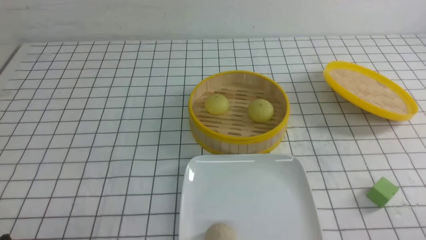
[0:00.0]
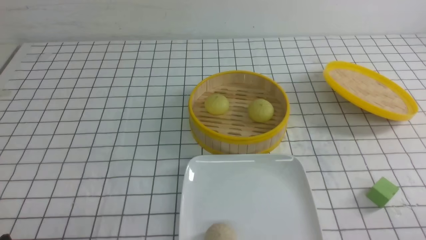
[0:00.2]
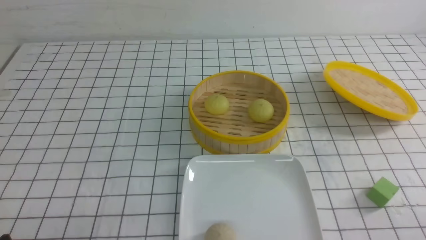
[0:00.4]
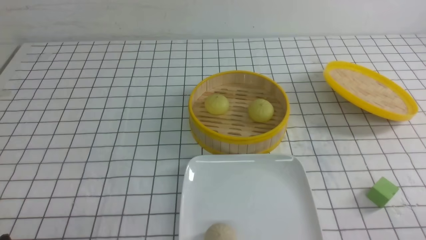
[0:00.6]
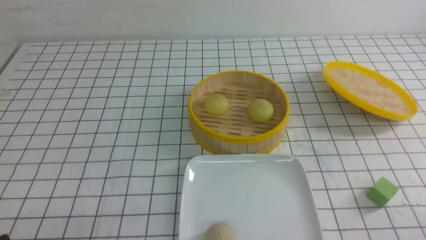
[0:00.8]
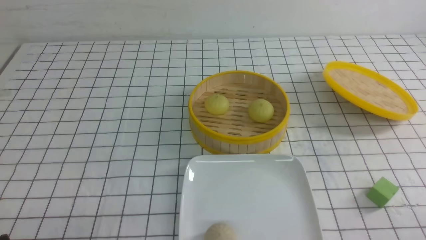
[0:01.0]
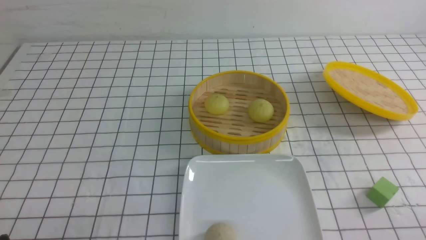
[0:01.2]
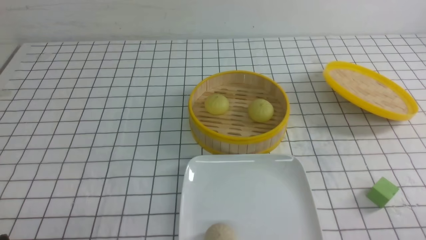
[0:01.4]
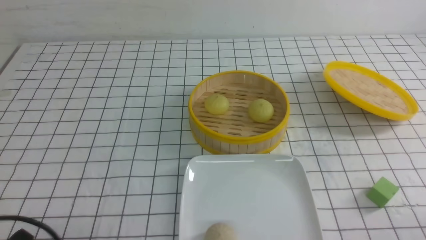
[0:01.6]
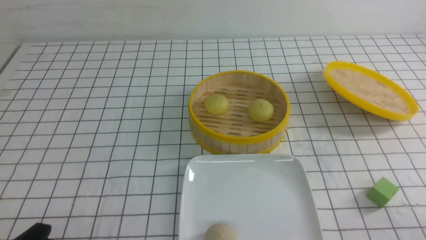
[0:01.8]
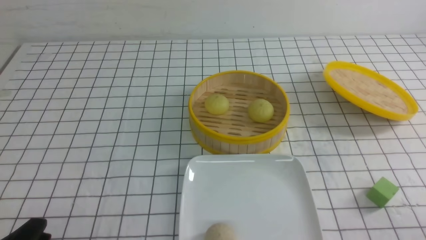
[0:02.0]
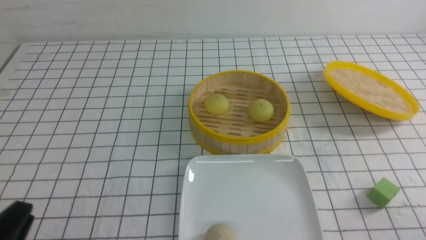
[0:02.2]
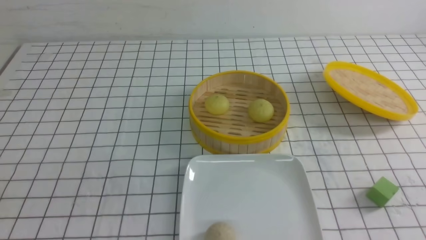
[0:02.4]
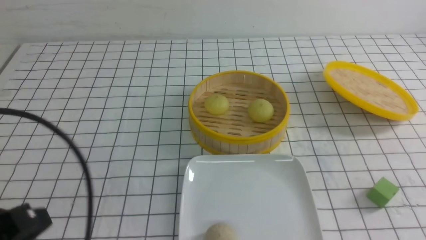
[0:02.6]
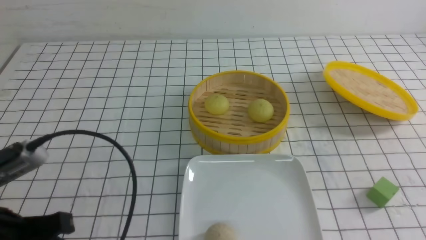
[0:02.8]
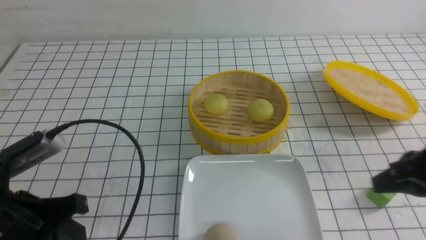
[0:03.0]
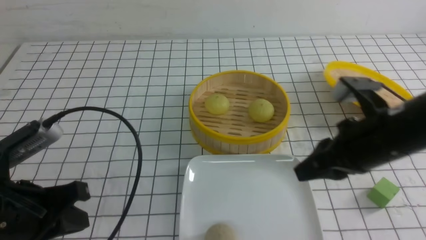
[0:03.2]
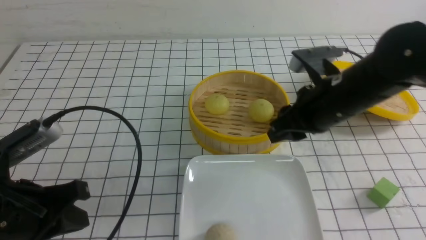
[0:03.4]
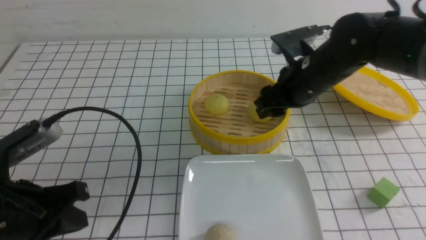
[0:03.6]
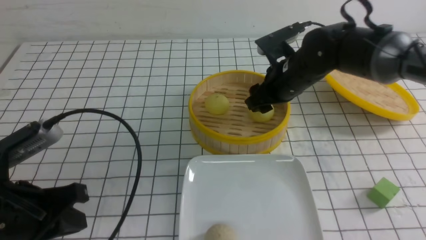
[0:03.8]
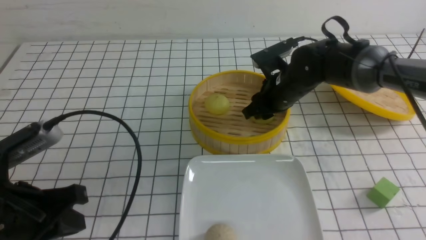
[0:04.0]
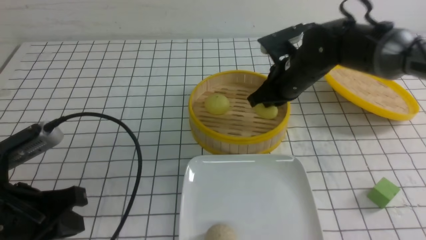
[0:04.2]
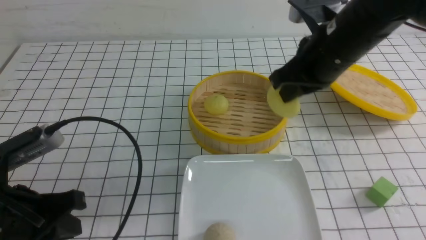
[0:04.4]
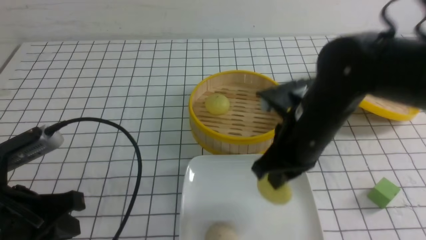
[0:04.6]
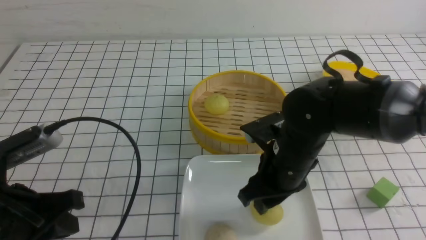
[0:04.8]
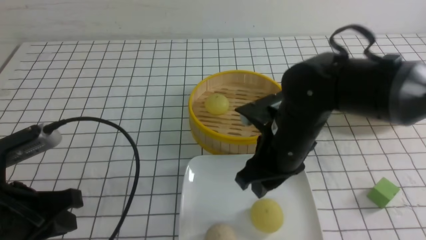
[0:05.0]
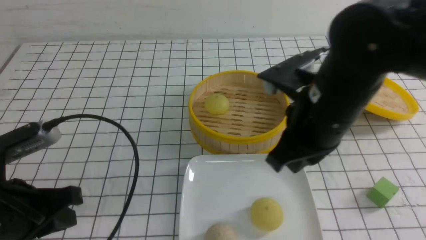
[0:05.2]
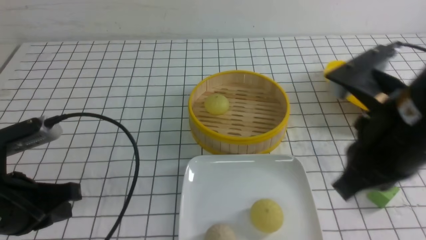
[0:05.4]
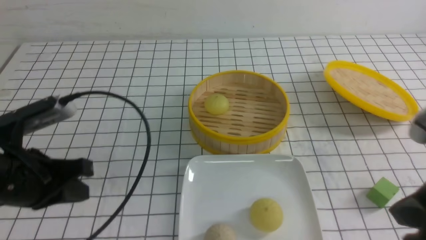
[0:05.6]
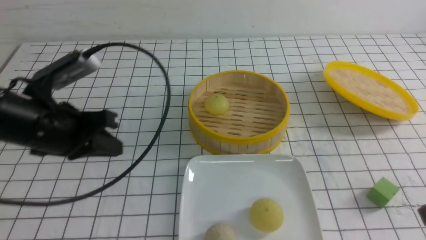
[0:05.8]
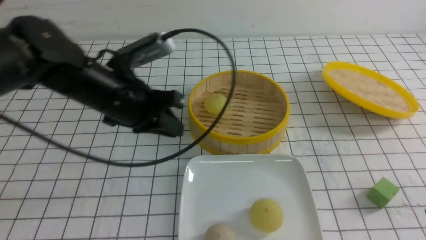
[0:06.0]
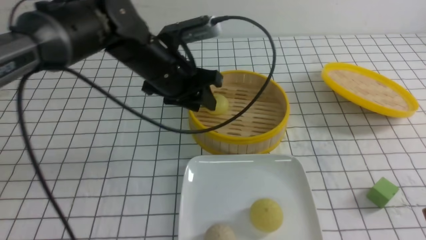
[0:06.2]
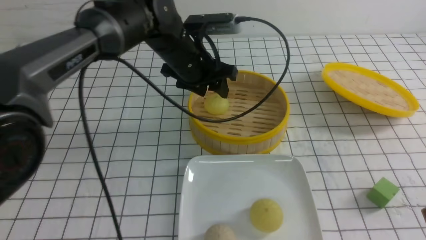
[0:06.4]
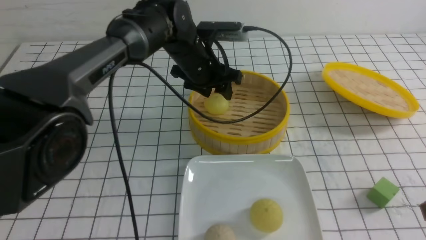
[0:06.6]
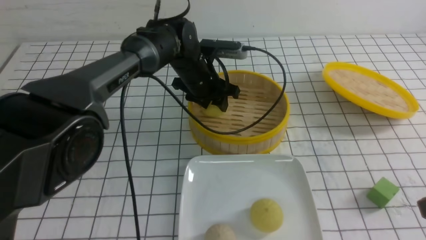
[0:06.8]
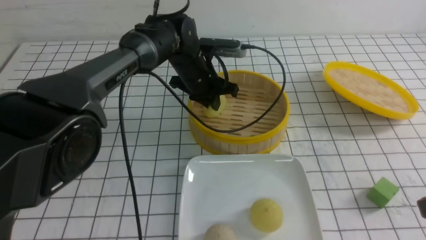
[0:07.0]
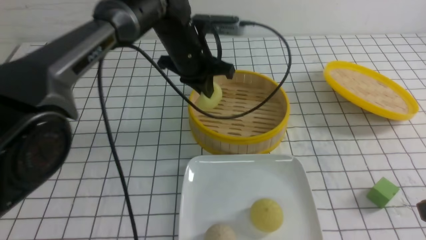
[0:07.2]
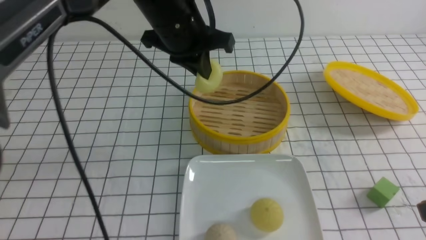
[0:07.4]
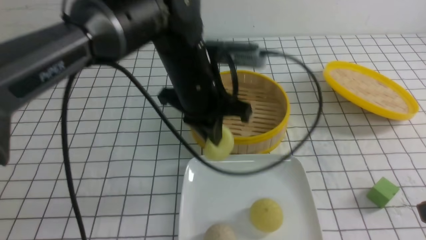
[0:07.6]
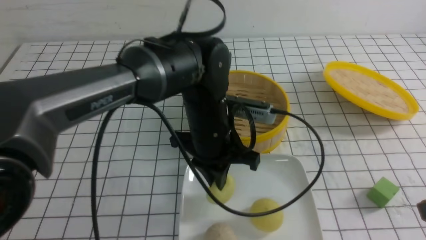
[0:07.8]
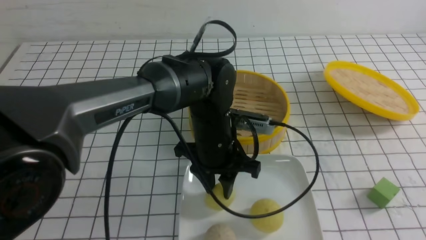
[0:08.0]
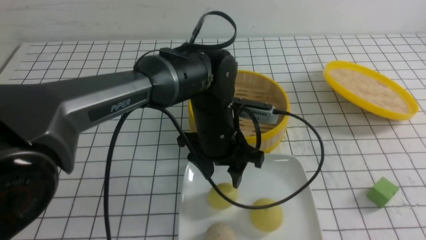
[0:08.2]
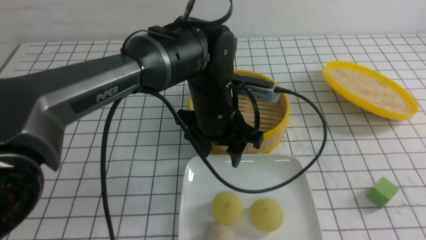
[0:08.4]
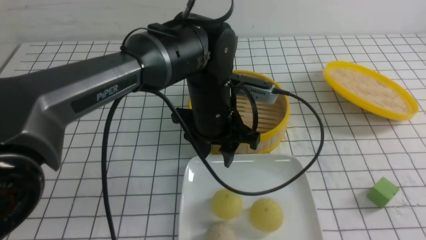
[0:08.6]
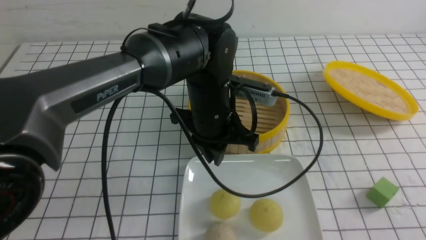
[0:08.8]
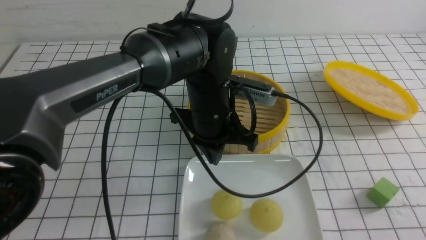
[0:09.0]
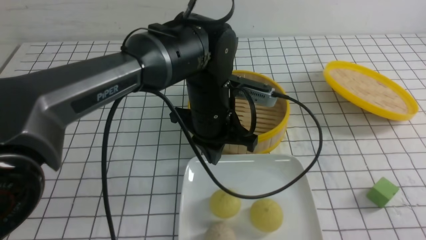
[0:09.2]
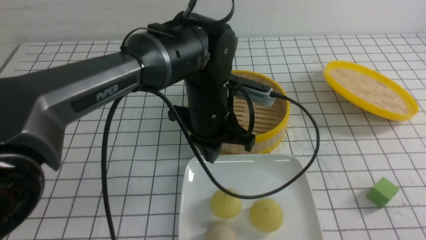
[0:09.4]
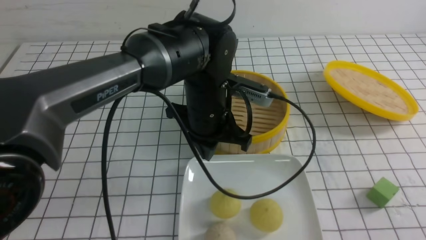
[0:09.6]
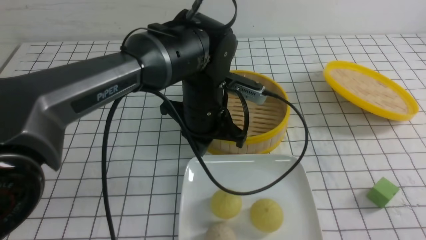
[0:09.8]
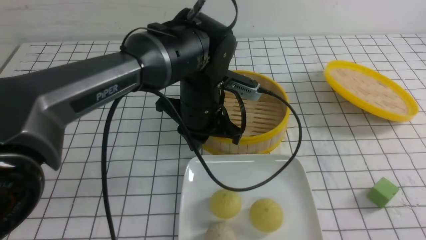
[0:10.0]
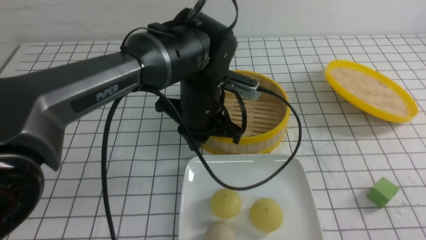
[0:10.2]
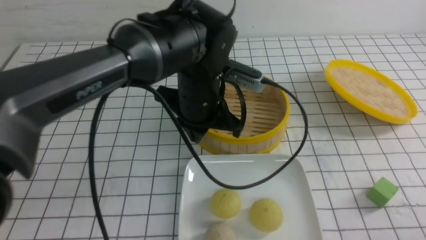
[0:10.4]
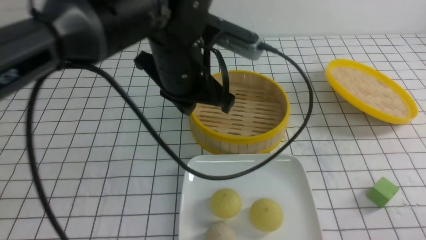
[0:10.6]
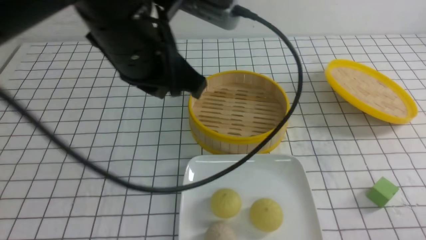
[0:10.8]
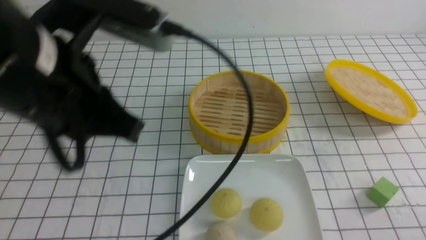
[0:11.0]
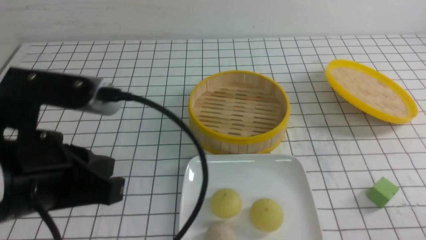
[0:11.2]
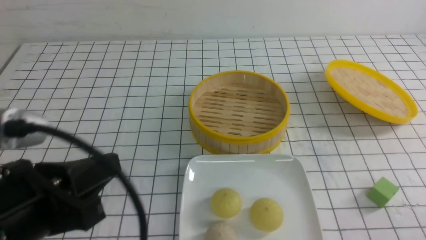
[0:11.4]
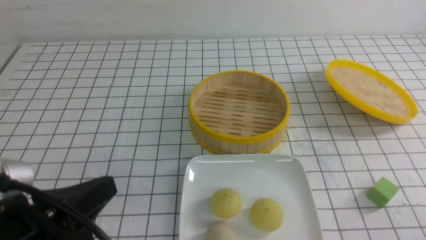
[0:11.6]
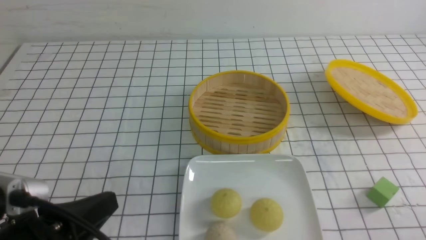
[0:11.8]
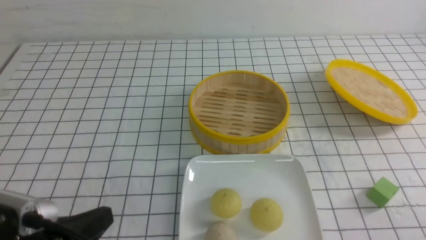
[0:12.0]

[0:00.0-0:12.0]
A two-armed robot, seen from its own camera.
Step, 0:00.0 to 0:04.2: use the right arm to grab the steamed stuffed bun that is closest to it.
Step, 0:04.4 to 0:05.0: use the right arm to put the steamed stuffed bun into the plate.
Step, 0:05.2 to 0:07.0: use the left arm to grab the steamed stuffed bun that is closest to it.
Step, 0:07.4 to 0:08.2: use the left arm to put the steamed stuffed bun into the plate.
0:01.6 to 0:03.0: The right gripper is displaced forward, upward and to the left by roughly 20 cm, and closes; the left gripper shifts some 10 cm forward and upward, and closes its fingers.
0:03.0 to 0:04.4: The right gripper is displaced forward and to the left by approximately 20 cm, and opens, then closes again.
0:04.4 to 0:06.0: The right gripper goes roughly 30 cm backward and to the right, and opens and closes again. Meanwhile the left gripper shifts about 20 cm forward and to the right.
0:06.0 to 0:07.6: The left gripper moves to the right, about 10 cm, moves some 15 cm forward and comes back, and opens, then closes again.
0:07.6 to 0:09.0: The left gripper opens, then closes once more. Meanwhile the right gripper heads backward, covering approximately 5 cm.
0:09.0 to 0:10.4: The right gripper goes approximately 10 cm downward; the left gripper shifts by about 5 cm.
0:10.4 to 0:12.0: The left gripper moves backward and to the left, roughly 30 cm.

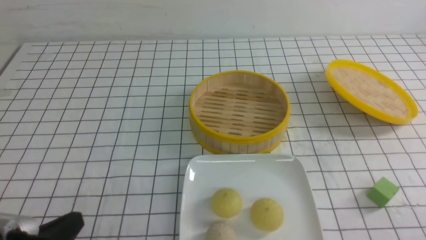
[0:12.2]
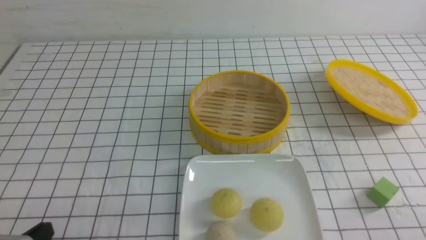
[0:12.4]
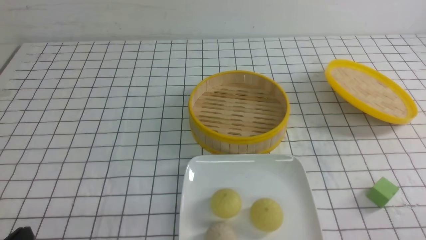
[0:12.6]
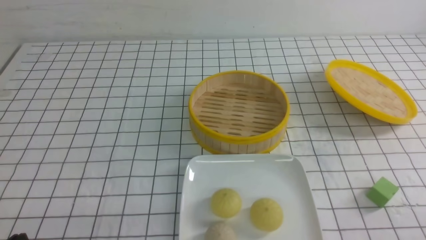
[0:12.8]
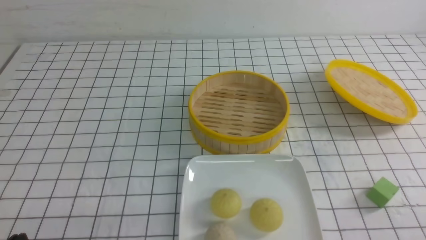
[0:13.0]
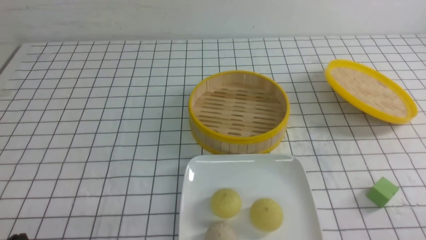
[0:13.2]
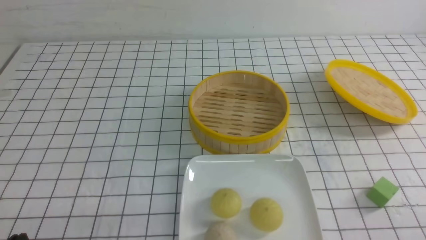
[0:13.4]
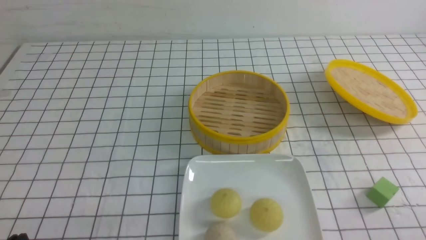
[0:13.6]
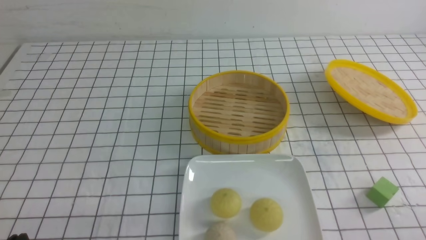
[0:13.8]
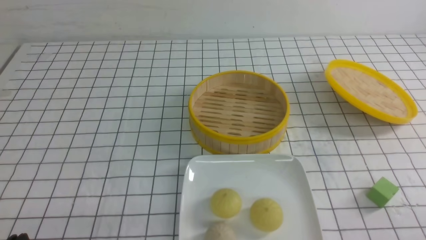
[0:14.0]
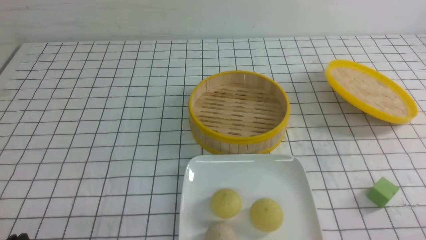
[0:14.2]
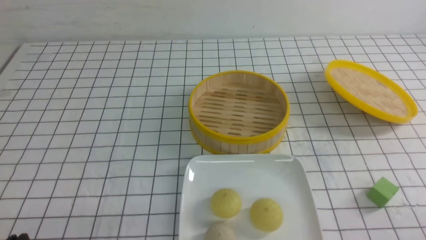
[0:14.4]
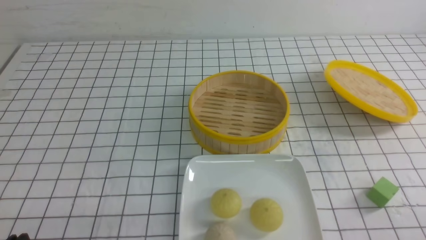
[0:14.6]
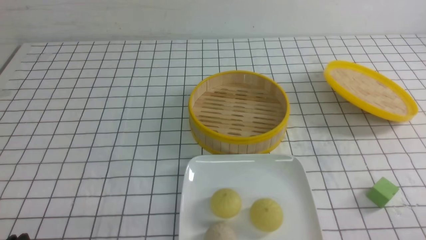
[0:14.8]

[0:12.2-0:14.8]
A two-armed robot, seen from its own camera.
0:12.2 to 0:13.4: The left gripper moves some 5 cm.
0:13.4 to 0:14.8: Both grippers stay about where they are.
